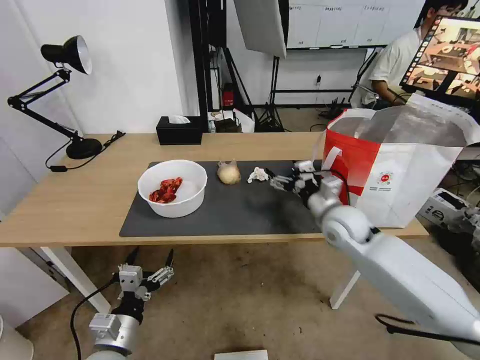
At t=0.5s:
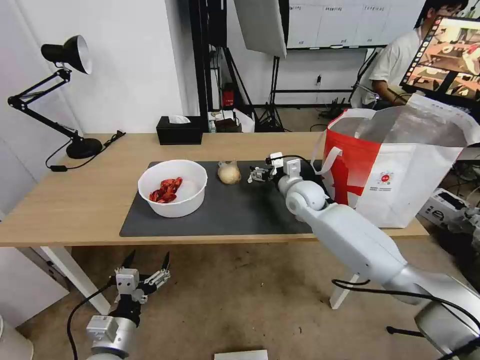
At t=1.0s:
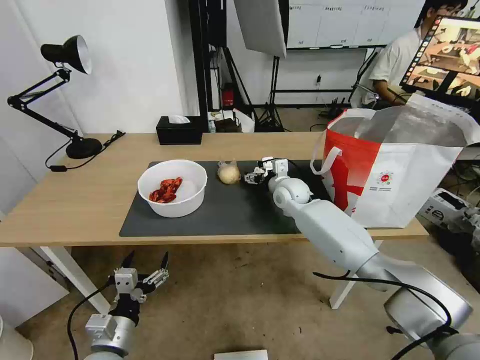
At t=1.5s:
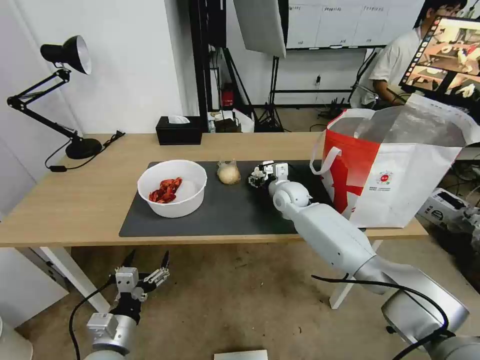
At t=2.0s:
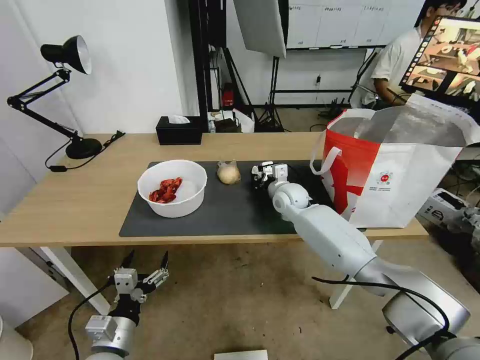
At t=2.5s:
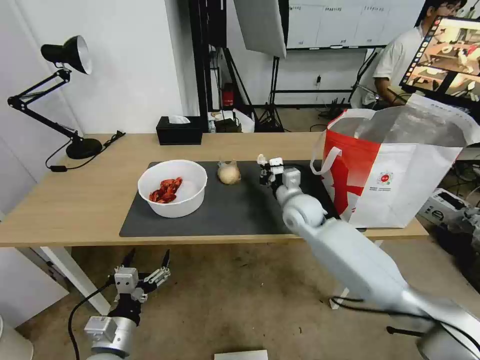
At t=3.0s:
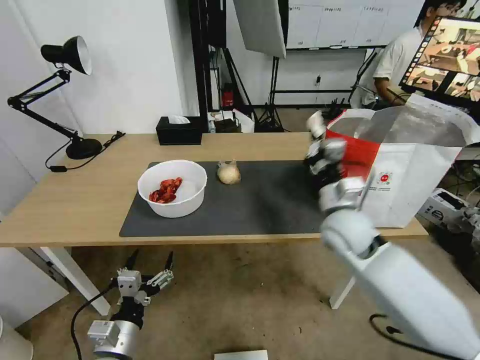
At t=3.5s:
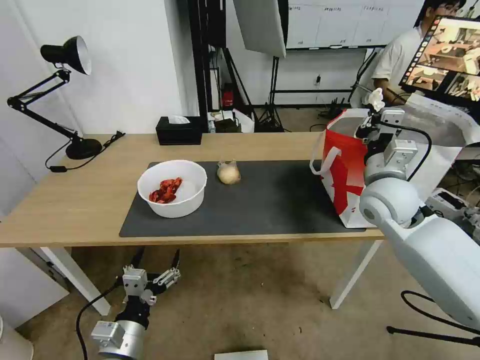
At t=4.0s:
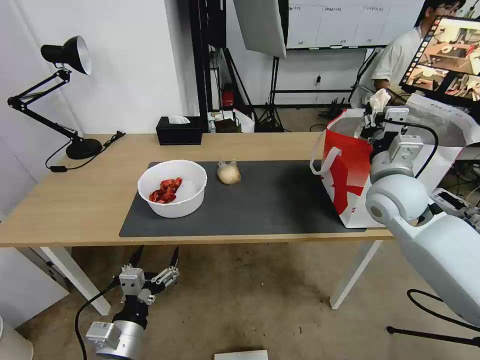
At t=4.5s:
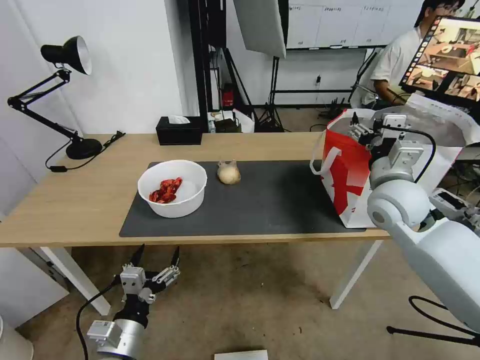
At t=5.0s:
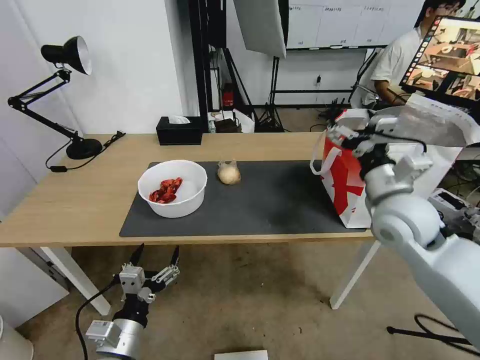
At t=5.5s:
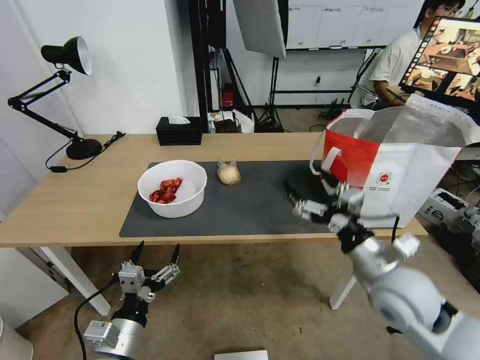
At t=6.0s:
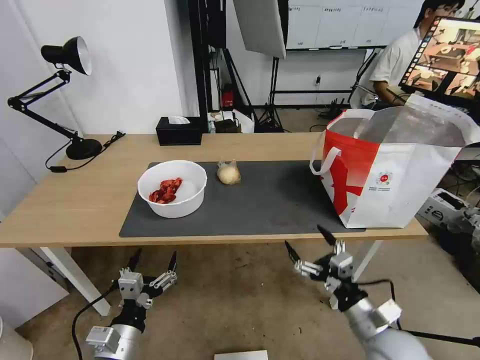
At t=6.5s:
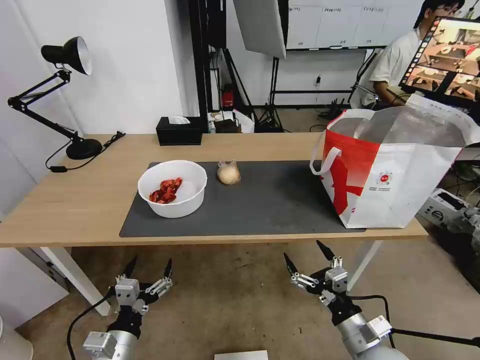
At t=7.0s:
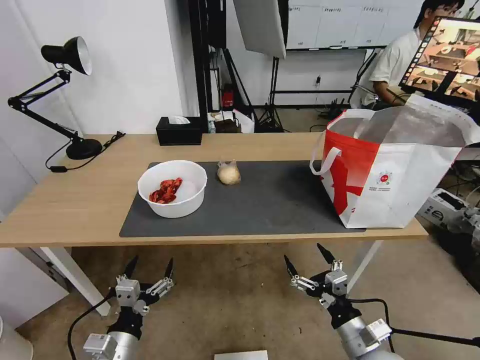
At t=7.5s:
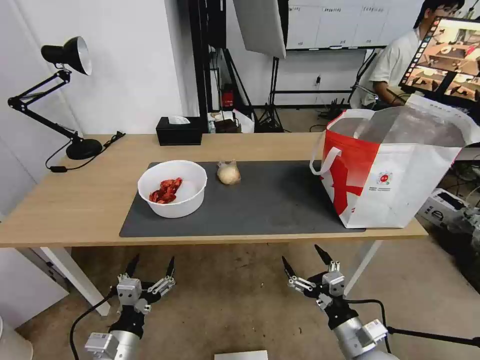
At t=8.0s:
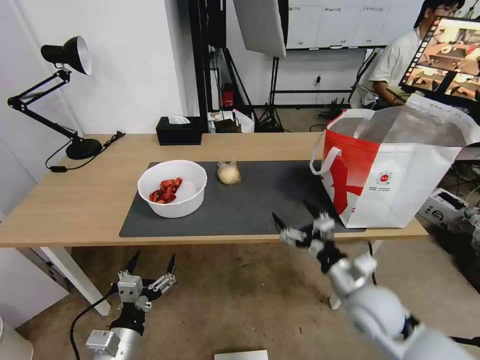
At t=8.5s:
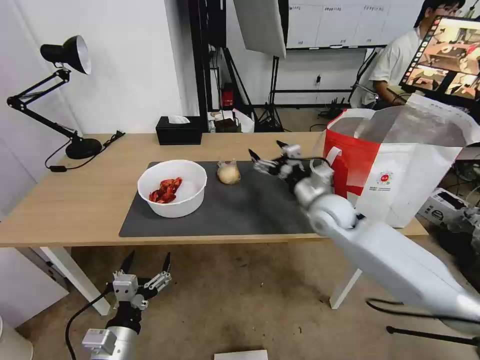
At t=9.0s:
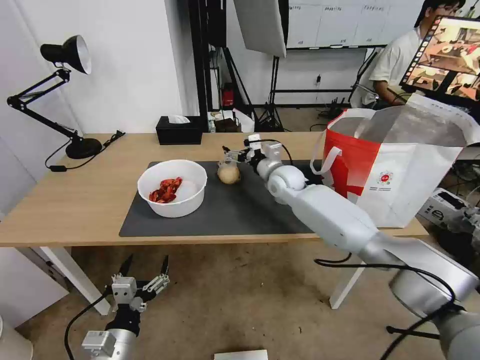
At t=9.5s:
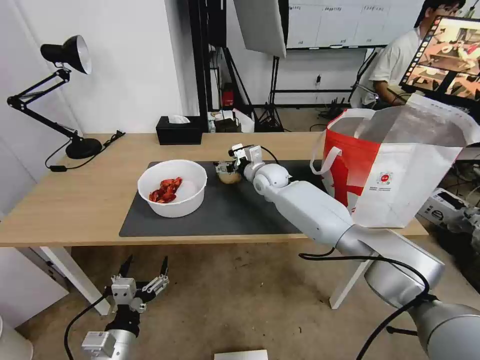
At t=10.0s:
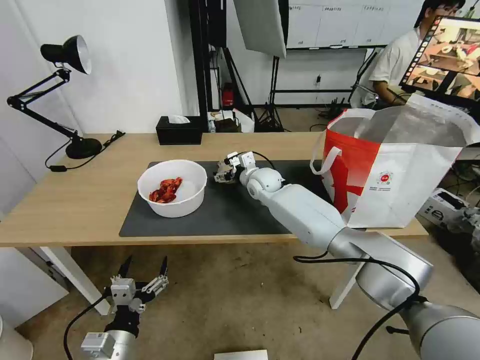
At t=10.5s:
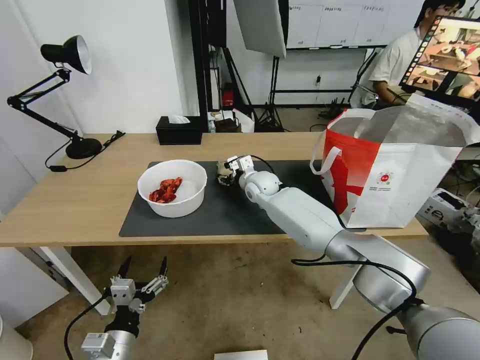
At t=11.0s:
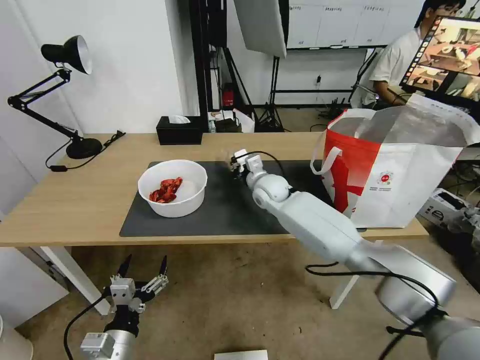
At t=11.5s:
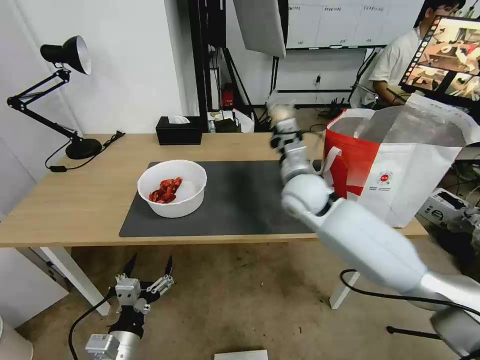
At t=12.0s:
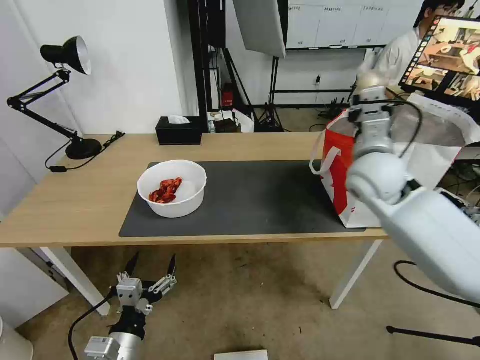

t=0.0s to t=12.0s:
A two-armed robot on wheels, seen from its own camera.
Task of the whole recording: Pick up the trash from the table and place it into the takeout bag.
t=0.0s to t=2.0s: The right gripper moves forward and to the left, approximately 15 cm, and closes its fingers.
t=2.0s to t=4.0s: The right gripper shifts roughly 25 cm upward, to the right and backward.
t=4.0s to t=6.0s: The right gripper heads backward and downward, covering roughly 30 cm, and opens up.
t=6.0s to t=8.0s: The right gripper shifts roughly 5 cm forward.
t=8.0s to t=10.0s: The right gripper is displaced forward and to the left by roughly 40 cm.
t=10.0s to t=12.0s: The right gripper heads to the right, upward and backward, covering about 30 cm, and closes.

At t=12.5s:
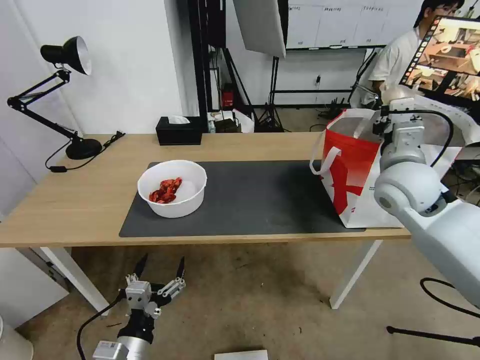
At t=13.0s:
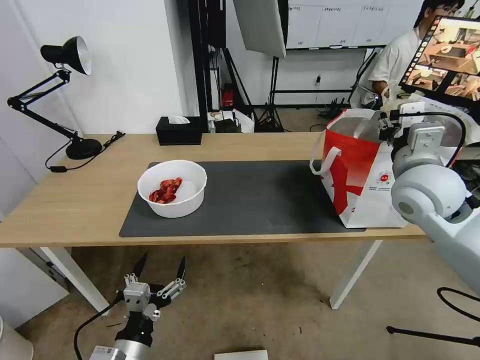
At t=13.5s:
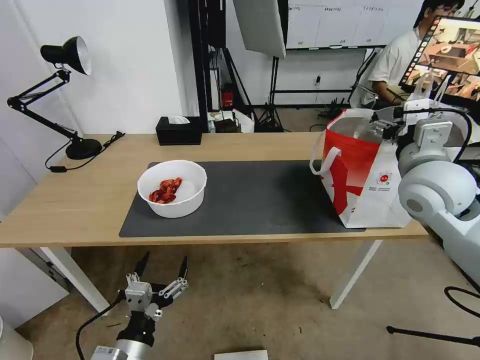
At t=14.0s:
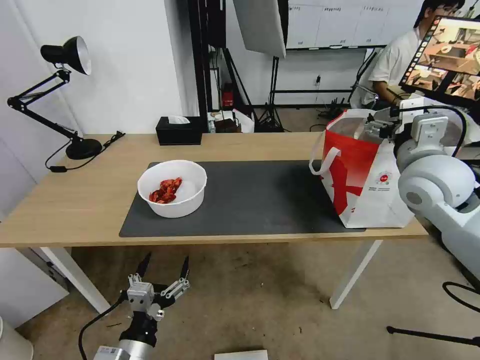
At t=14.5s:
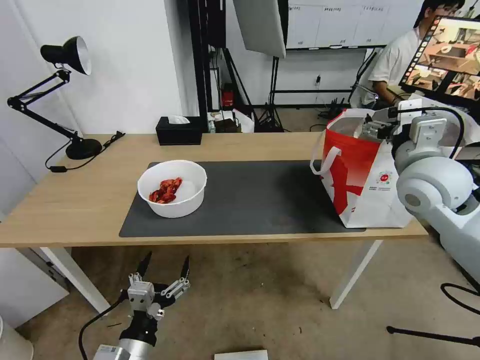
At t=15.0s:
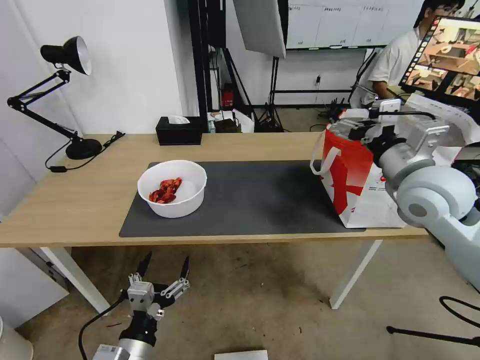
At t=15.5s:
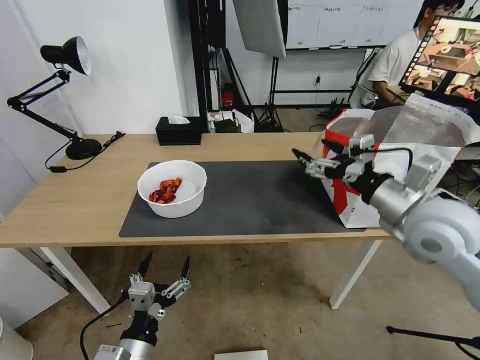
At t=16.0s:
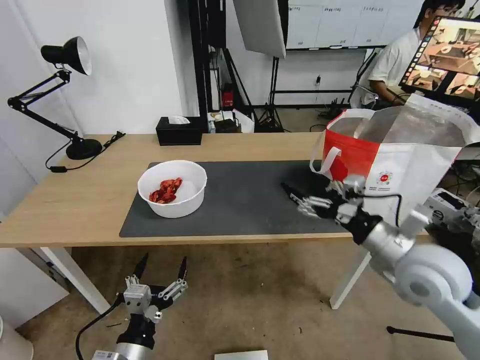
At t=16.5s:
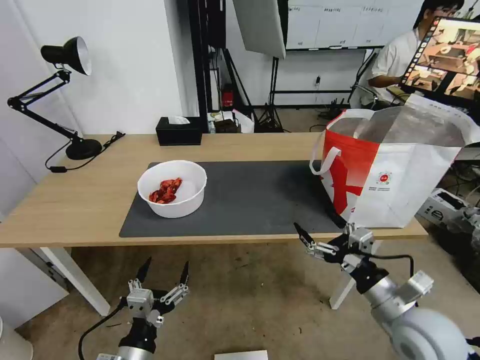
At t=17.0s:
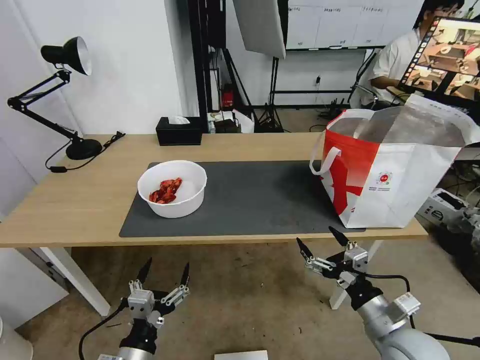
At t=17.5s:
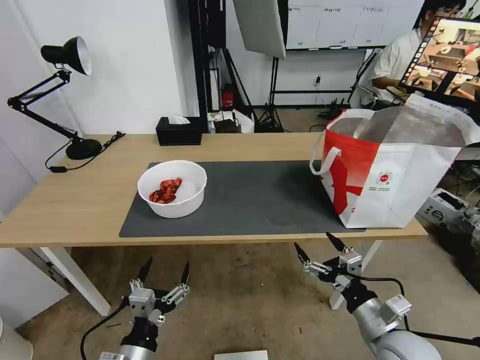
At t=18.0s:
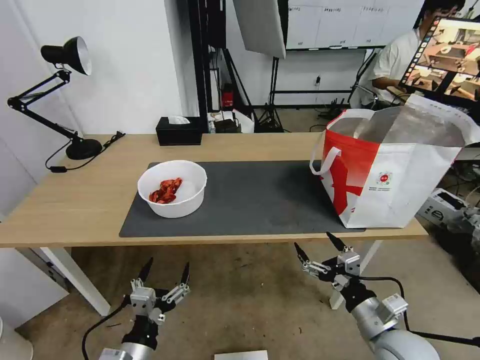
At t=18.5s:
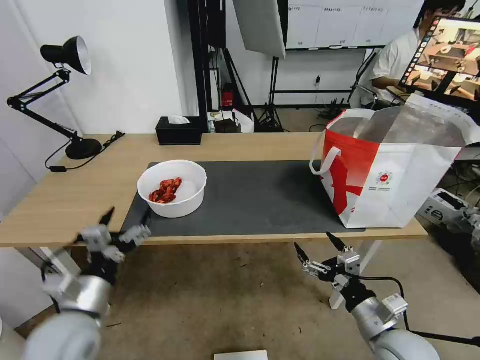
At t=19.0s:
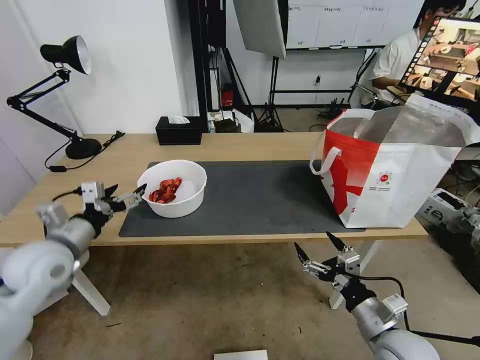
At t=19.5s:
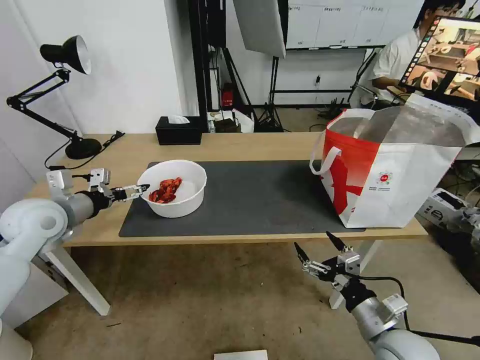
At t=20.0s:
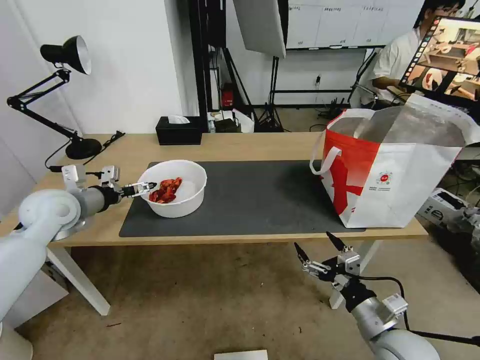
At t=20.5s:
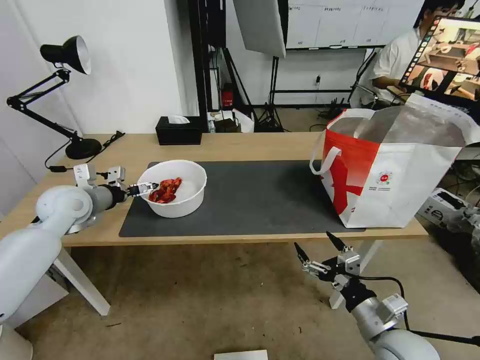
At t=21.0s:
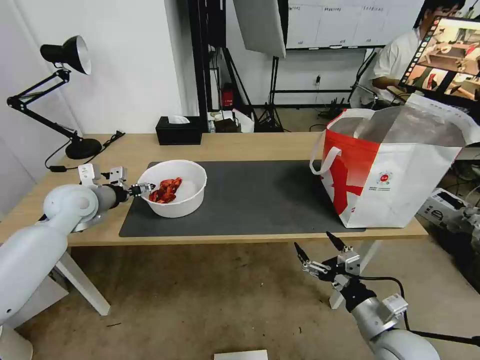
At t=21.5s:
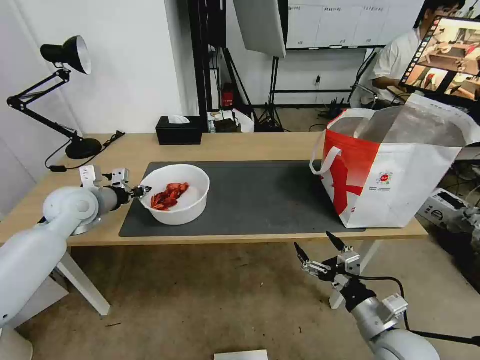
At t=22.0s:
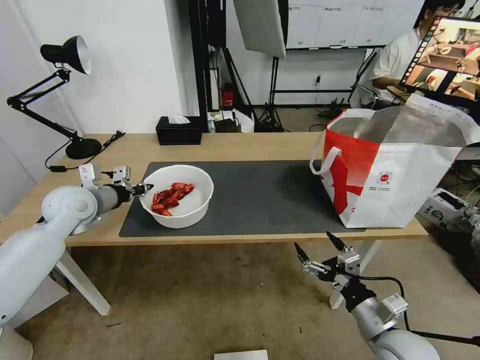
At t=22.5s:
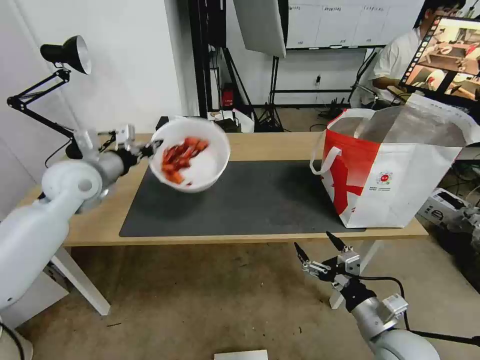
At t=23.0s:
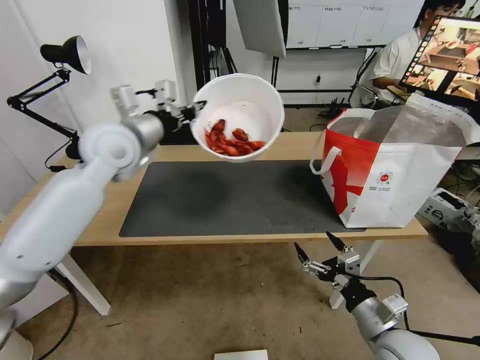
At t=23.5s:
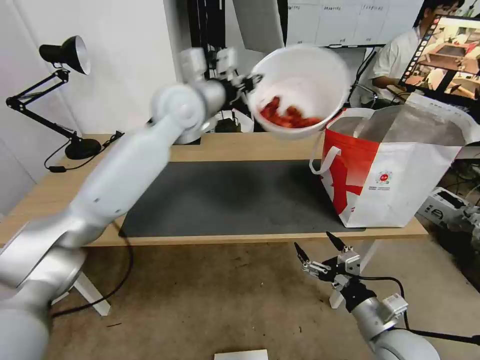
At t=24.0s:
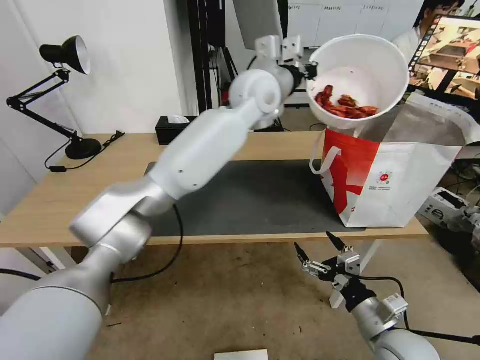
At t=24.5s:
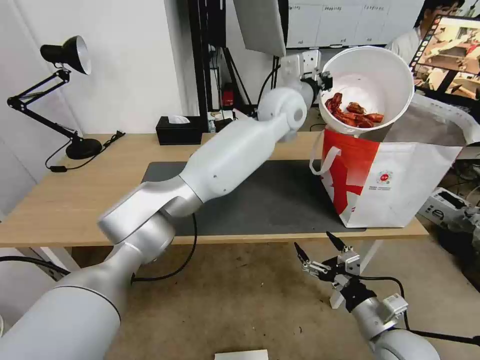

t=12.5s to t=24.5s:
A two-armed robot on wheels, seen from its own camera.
Task of the whole recording: Pick up the trash from the table and place it into the takeout bag.
t=12.5s to t=14.5s: The right gripper opens its fingers.
t=14.5s to t=16.5s: The right gripper shifts some 25 cm backward and downward.
t=16.5s to t=18.5s: The right gripper goes some 5 cm downward; the left gripper is displaced forward, to the left and upward by roughly 15 cm.
t=18.5s to t=20.5s: The left gripper goes some 25 cm forward.
t=20.5s to t=22.5s: The left gripper goes about 5 cm upward, and closes up.
t=22.5s to t=24.5s: The left gripper goes roughly 40 cm to the right.

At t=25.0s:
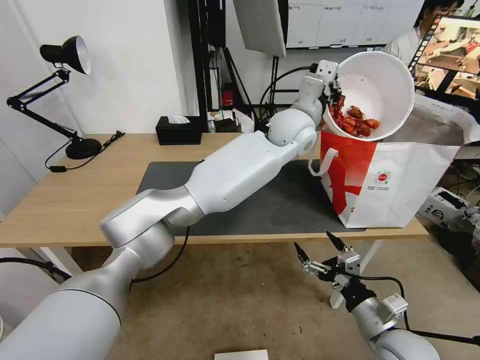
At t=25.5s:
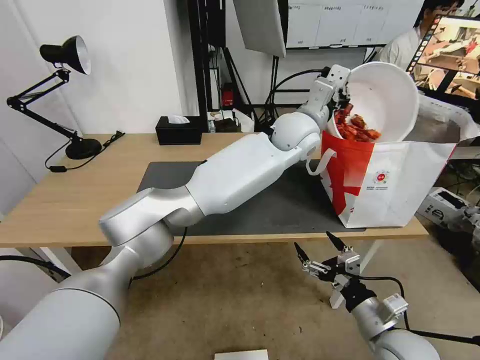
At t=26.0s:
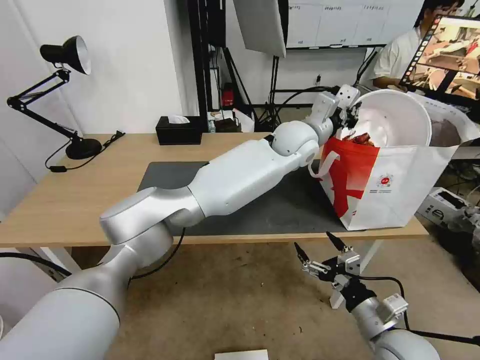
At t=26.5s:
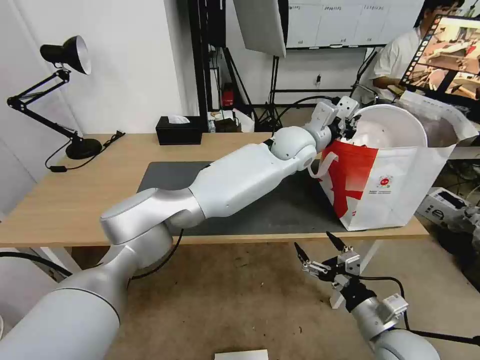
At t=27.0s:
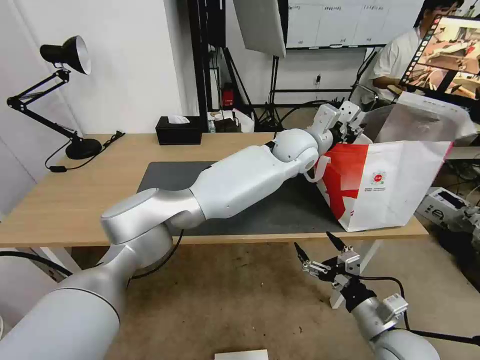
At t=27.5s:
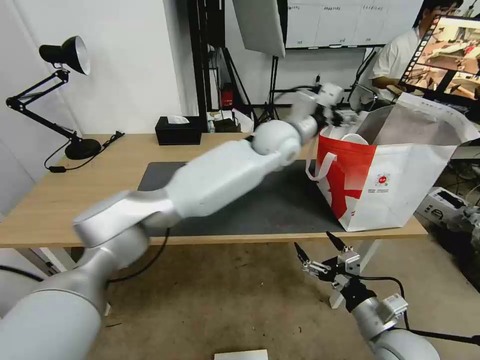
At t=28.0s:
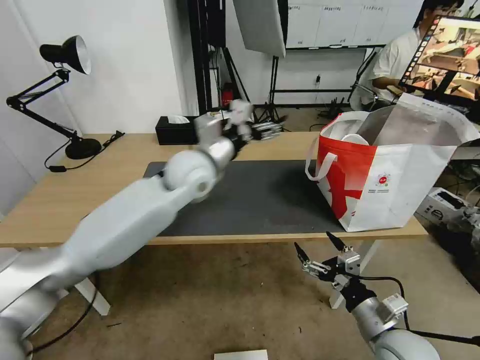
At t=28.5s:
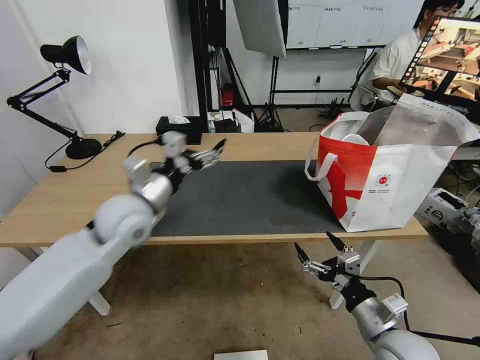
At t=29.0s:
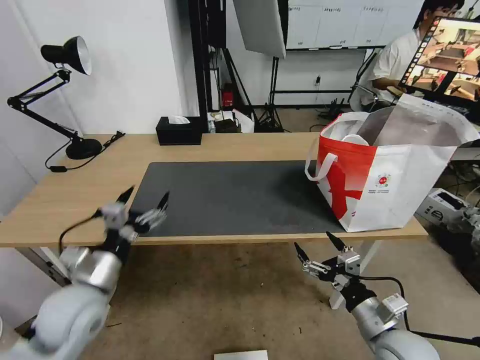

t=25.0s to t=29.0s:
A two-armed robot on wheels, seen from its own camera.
Task of the whole recording: Pick up the trash from the table and place it into the takeout bag.
t=25.0s to t=27.0s: The left gripper opens.
t=27.0s to t=29.0s: The left gripper is displaced to the left and backward by approximately 50 cm, and opens up.
